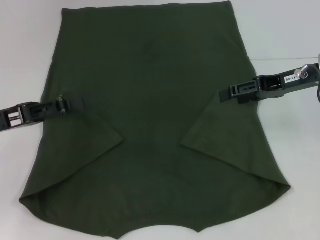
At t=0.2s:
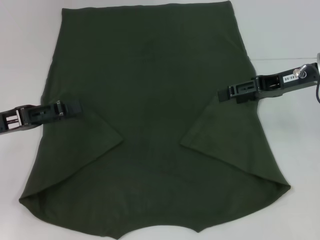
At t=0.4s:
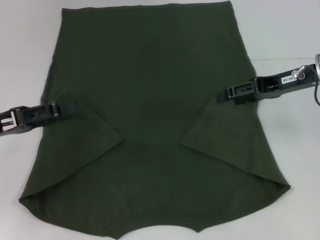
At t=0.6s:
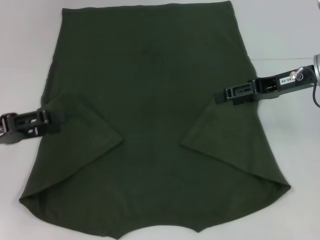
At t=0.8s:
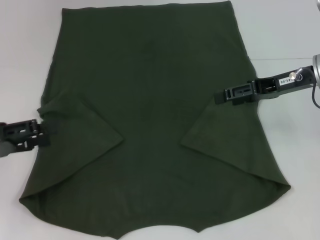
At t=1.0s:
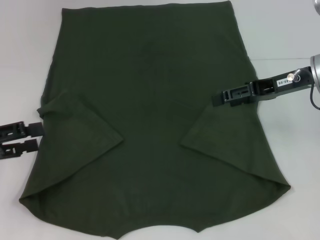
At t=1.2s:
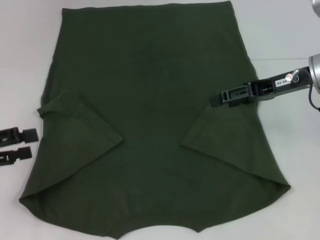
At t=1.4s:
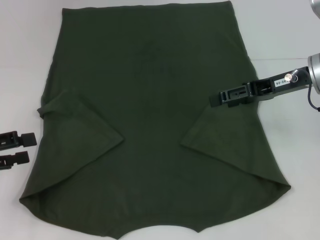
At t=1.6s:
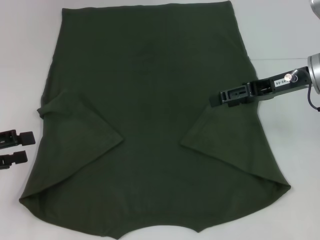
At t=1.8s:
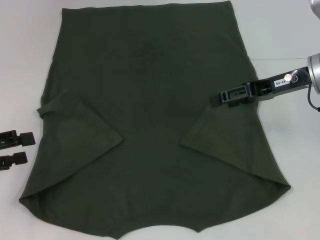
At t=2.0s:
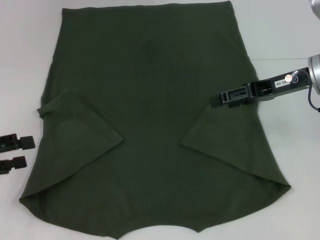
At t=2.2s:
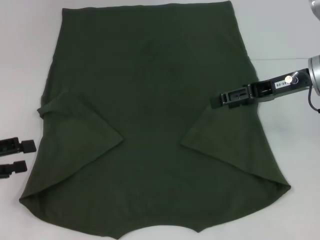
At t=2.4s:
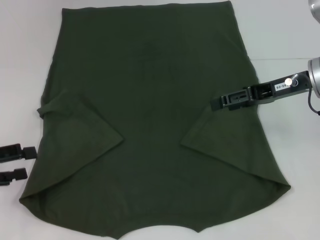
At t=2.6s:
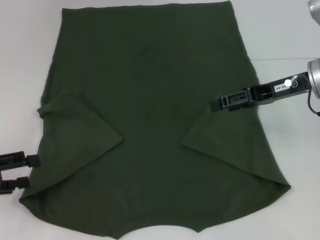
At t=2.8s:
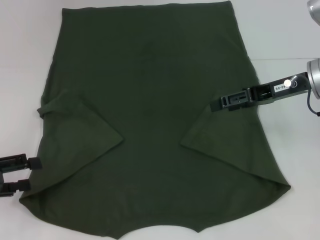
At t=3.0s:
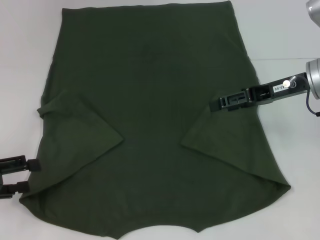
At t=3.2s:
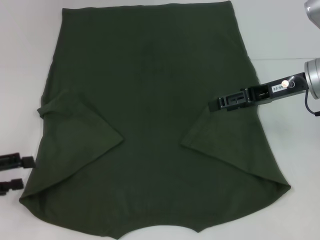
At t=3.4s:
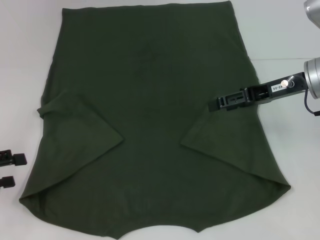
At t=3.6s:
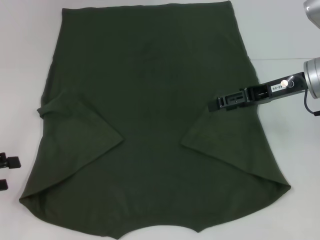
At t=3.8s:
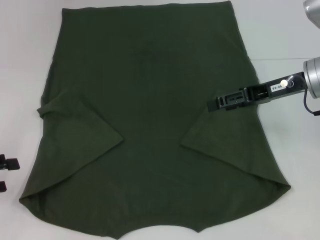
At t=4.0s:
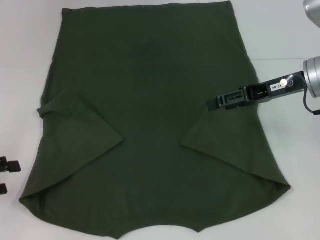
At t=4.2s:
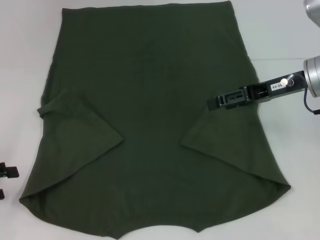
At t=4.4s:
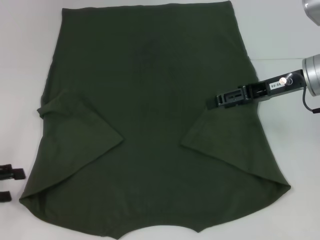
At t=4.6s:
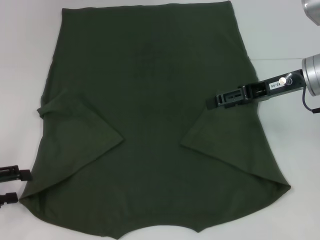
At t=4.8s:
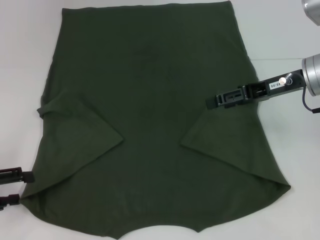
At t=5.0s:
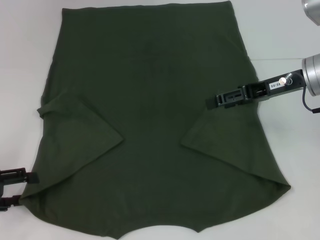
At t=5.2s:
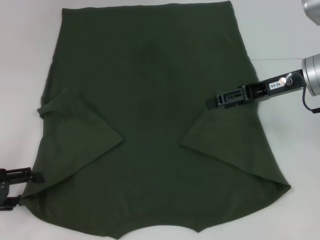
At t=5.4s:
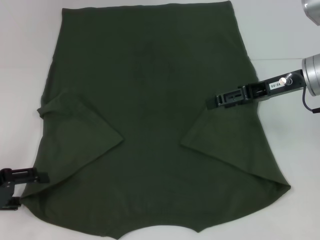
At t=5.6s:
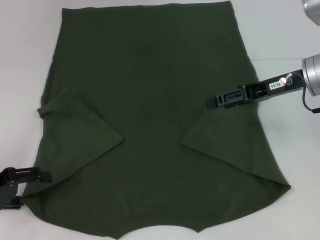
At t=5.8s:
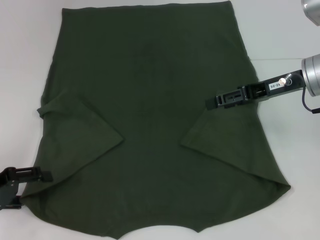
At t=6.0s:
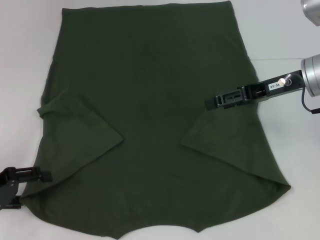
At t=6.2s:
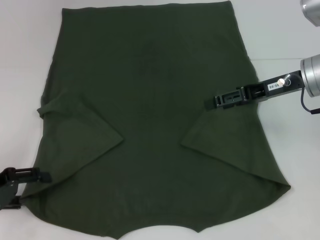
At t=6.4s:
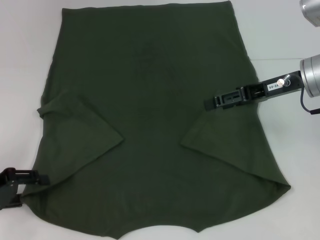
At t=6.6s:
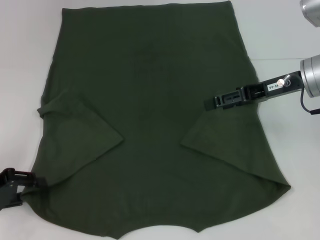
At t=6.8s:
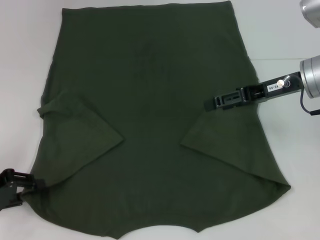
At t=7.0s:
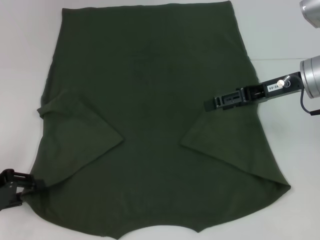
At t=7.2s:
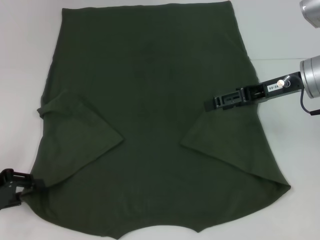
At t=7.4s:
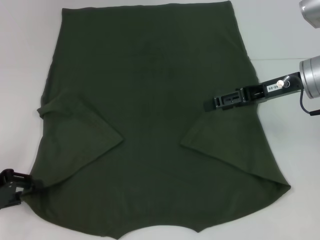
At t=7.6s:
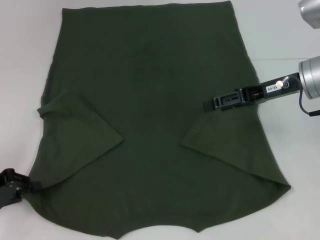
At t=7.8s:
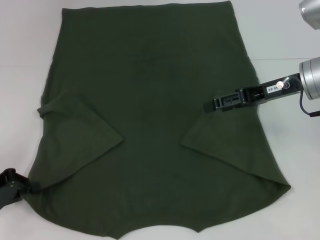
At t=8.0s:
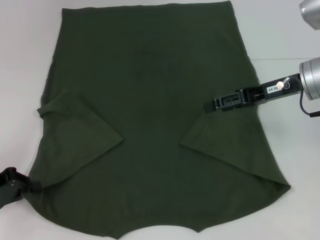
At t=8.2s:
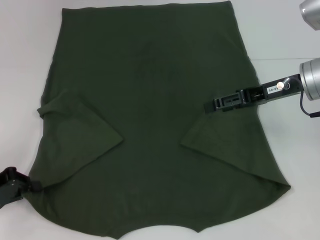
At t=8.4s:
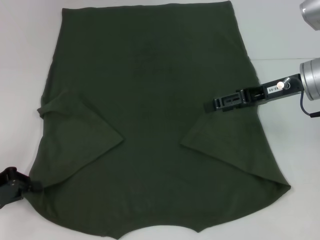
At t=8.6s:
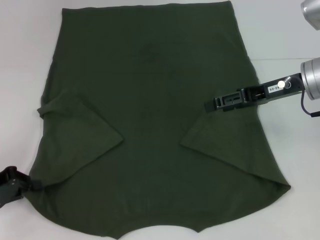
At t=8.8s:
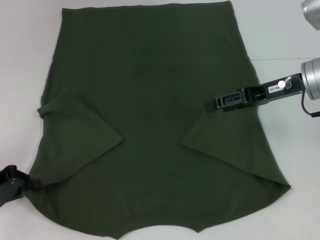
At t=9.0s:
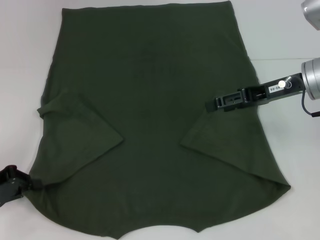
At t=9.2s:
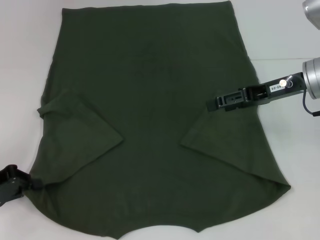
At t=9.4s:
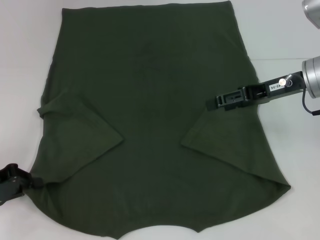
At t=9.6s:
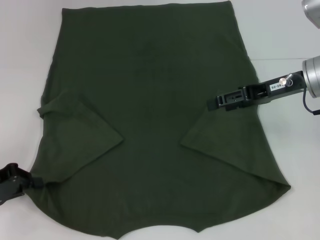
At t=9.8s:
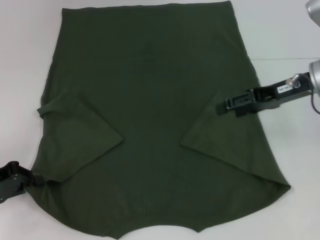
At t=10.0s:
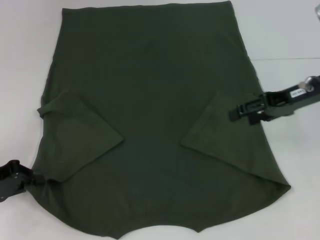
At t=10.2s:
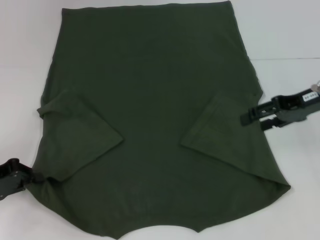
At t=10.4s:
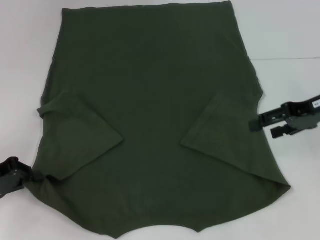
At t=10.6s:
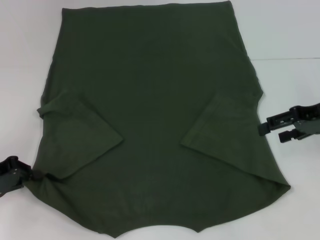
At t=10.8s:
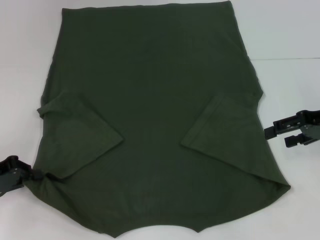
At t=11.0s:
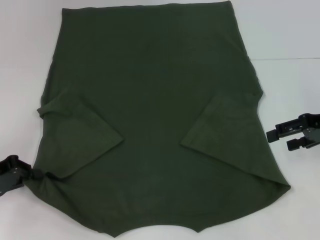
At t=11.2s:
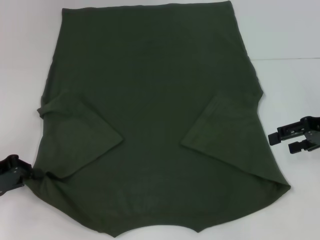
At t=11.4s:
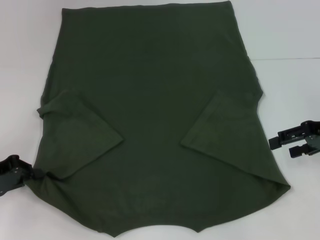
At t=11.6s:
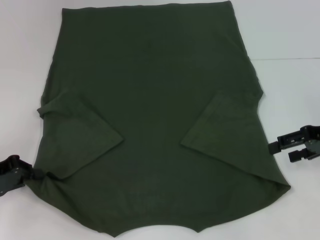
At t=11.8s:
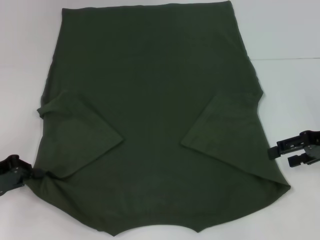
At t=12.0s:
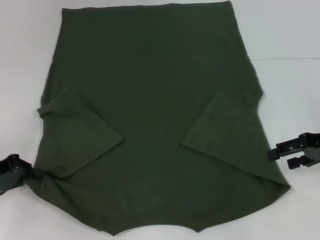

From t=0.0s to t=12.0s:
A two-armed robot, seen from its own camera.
Step, from t=0.0s to t=8.2s: Grab the bottom left corner with your left hand.
From t=0.0s to t=1.6s: The left gripper moves to the left, about 5 cm.
From t=1.6s to t=3.0s: The grippers move only a little.
From t=3.0s to t=6.0s: The grippers make only small movements.
From t=6.0s to t=7.6s: The left gripper closes its fingers.
From t=7.6s to t=9.0s: Both grippers stay about where they are.
From t=9.0s to t=10.4s: The right gripper goes about 5 cm to the right.
From t=10.4s to t=12.0s: The right gripper ends up some 5 cm from where it was.

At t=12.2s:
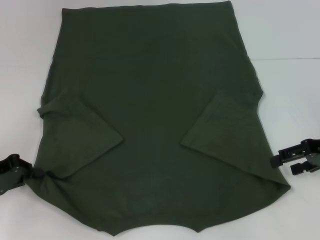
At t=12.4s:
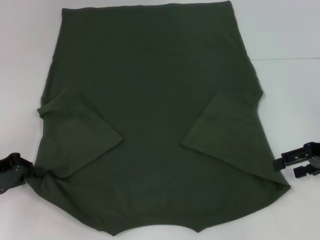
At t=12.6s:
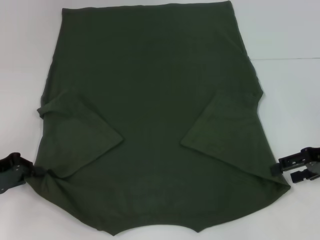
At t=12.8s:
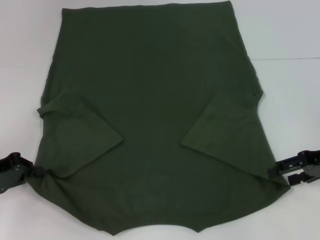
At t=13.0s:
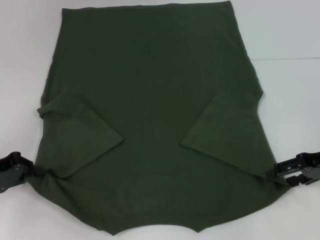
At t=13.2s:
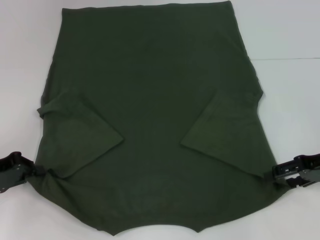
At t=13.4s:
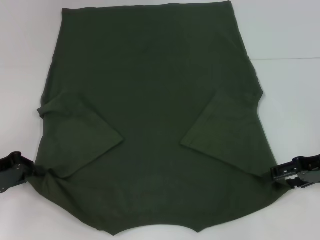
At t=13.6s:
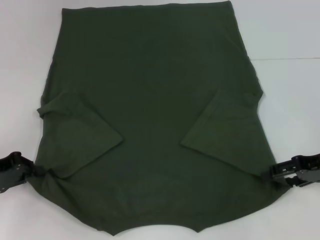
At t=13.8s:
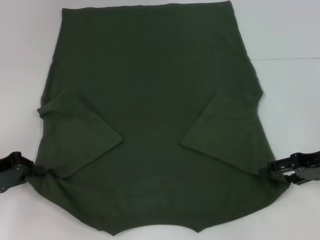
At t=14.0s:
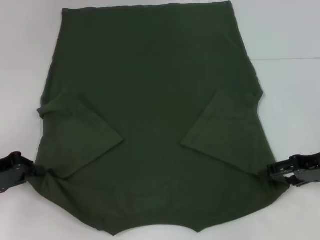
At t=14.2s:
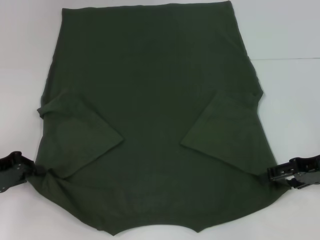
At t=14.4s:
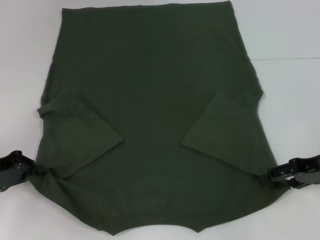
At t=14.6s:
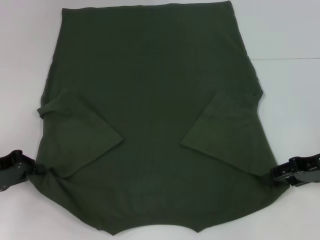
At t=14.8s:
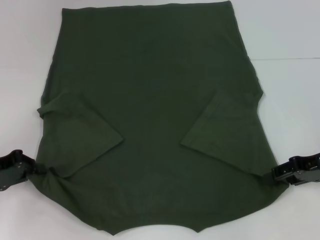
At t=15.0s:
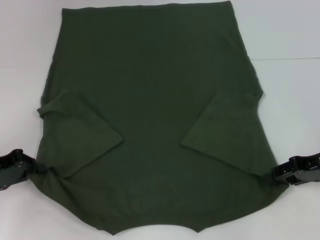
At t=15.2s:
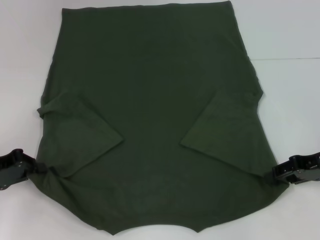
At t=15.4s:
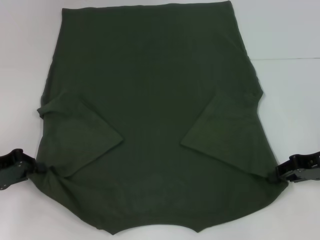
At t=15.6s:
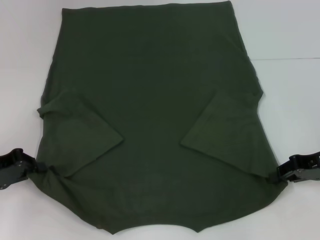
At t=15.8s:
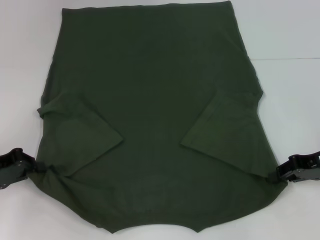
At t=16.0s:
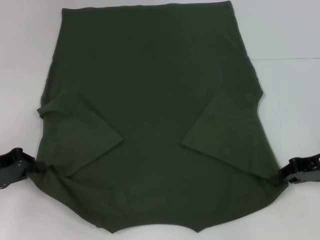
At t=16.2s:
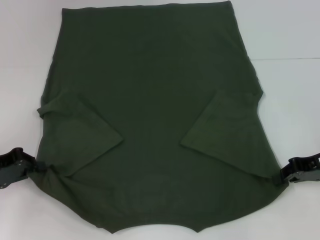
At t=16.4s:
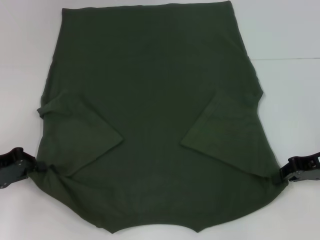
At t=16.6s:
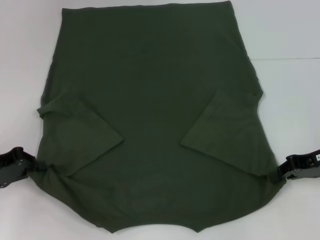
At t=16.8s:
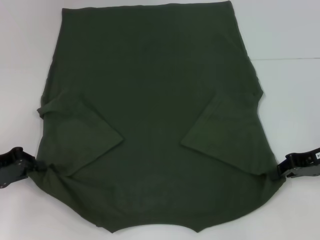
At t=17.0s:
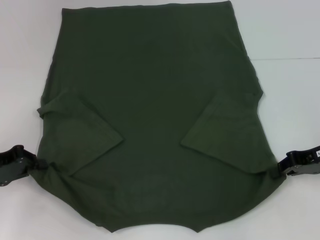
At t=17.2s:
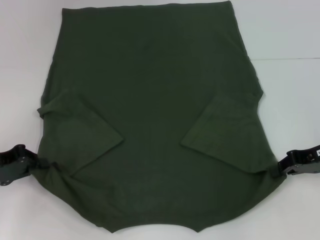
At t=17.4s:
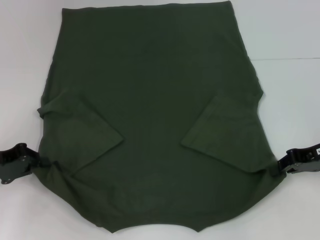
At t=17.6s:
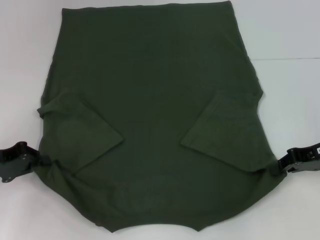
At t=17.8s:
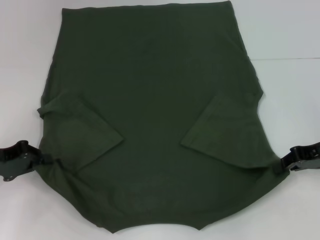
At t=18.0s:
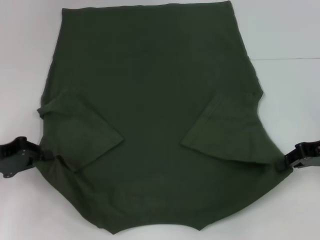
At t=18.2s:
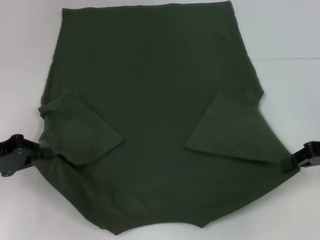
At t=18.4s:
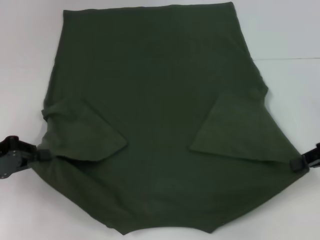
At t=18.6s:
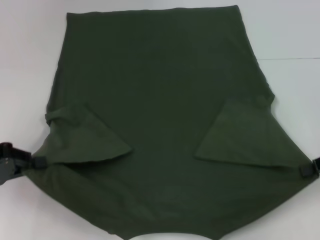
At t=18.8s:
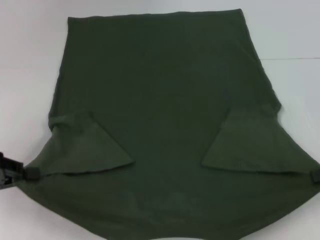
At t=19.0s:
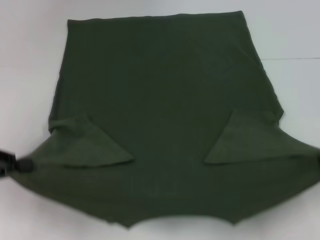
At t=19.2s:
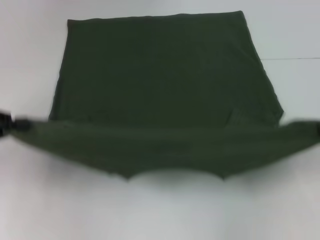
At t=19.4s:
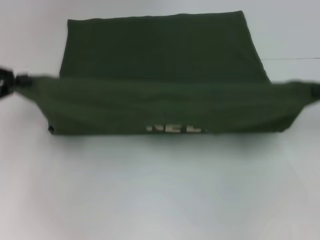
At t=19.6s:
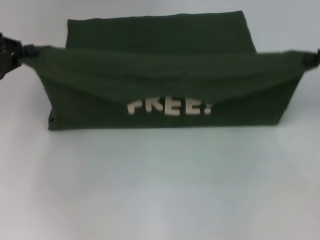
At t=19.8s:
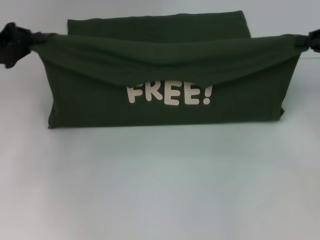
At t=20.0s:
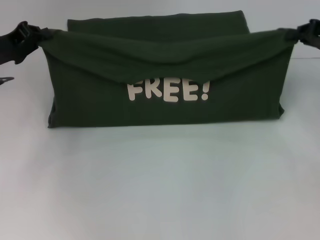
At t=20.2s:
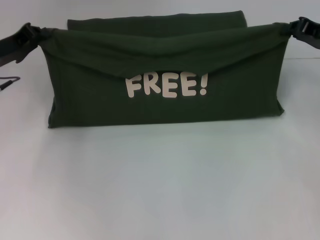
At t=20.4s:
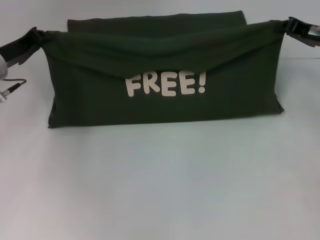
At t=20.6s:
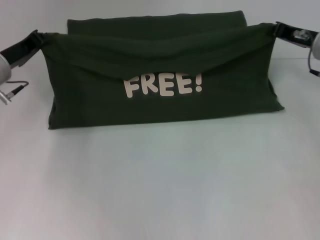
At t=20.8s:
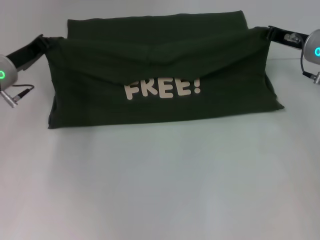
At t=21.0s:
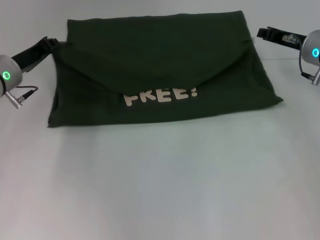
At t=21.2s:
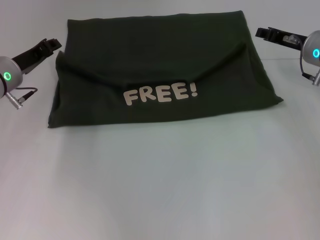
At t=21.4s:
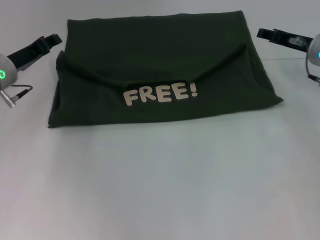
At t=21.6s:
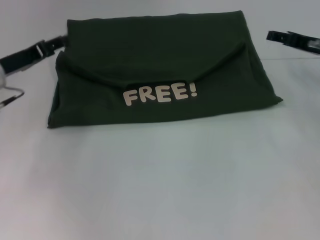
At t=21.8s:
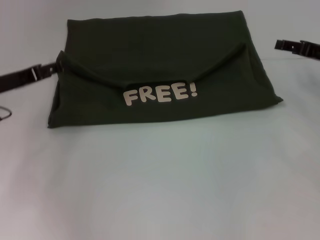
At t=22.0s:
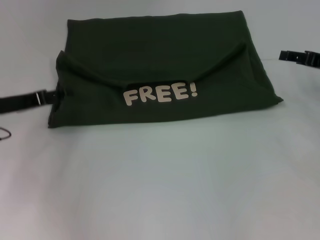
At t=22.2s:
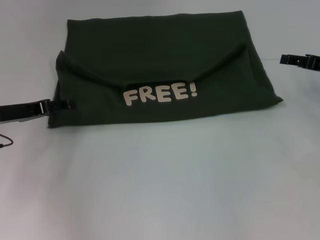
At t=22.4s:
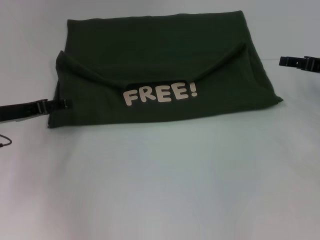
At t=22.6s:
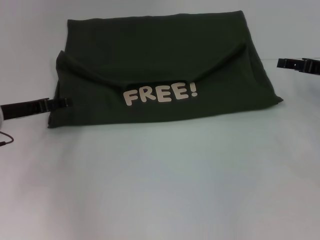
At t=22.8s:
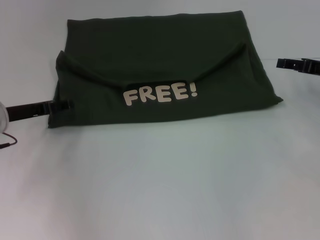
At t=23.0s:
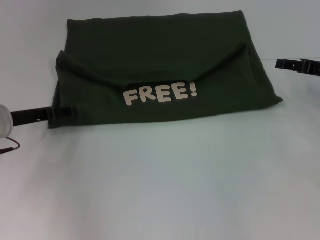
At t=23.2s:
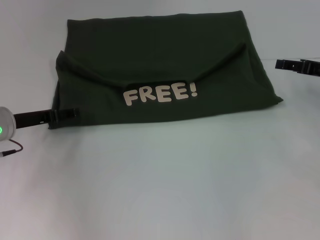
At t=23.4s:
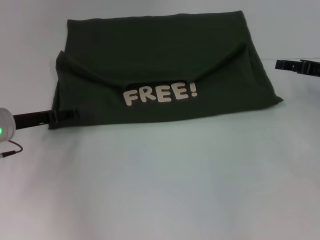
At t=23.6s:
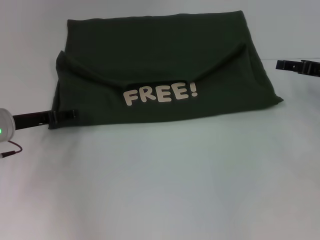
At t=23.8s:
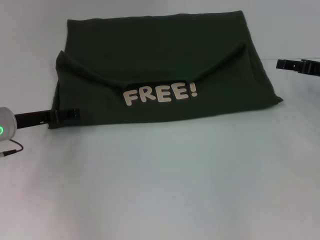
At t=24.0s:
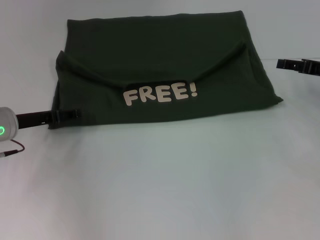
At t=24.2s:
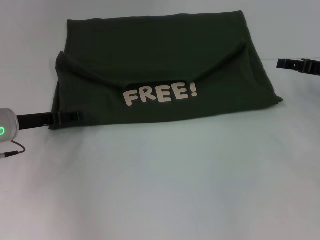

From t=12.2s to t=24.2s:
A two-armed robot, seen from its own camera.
Step, from t=12.2s to t=16.6s: Grab the bottom right corner with your right hand.
Step, from t=16.8s to t=21.4s: Fold the clothes with your left hand.
Step, from t=16.8s to t=21.4s: Fold the clothes with your right hand.
From t=12.2s to t=13.8s: The grippers move only a little.
From t=13.8s to t=15.2s: The right gripper closes.
From t=15.2s to t=16.6s: The right gripper closes up.
From t=16.6s to t=18.2s: There are only small adjustments of the grippers.
From t=18.2s to t=19.8s: Both grippers move forward and upward, roughly 10 cm.
From t=19.8s to t=21.2s: The right gripper moves to the left and downward, some 10 cm. Meanwhile the left gripper heads to the right and downward, covering approximately 10 cm.
From t=21.2s to t=22.6s: The left gripper changes place by some 5 cm, and opens up. Meanwhile the right gripper is displaced to the right by about 10 cm, and opens up.
From t=22.6s to t=24.2s: The grippers make only small movements.
